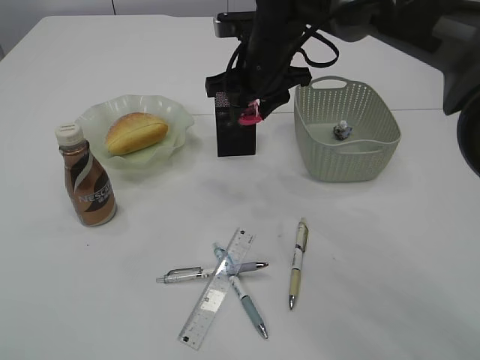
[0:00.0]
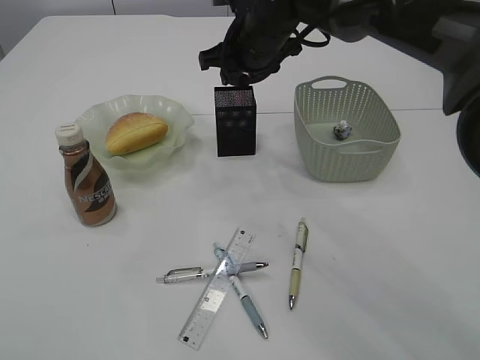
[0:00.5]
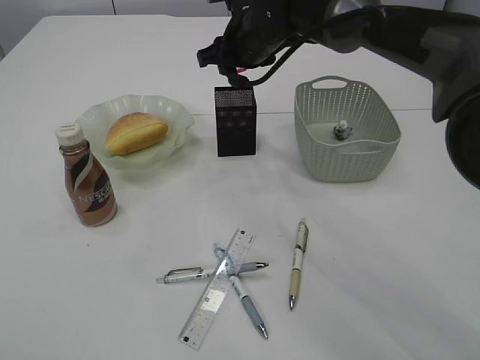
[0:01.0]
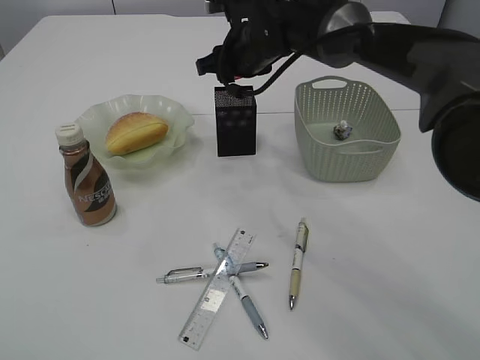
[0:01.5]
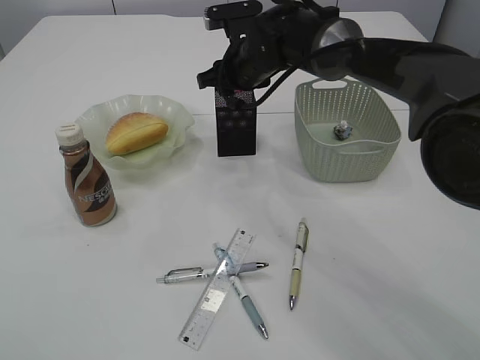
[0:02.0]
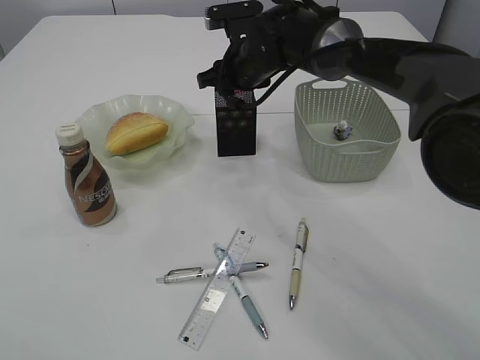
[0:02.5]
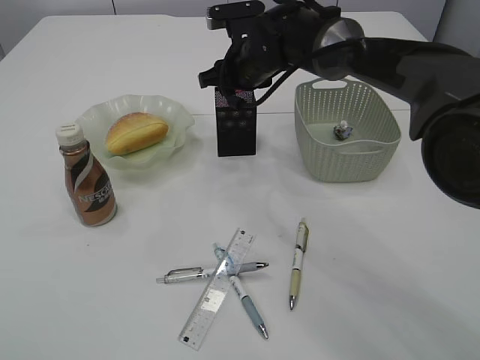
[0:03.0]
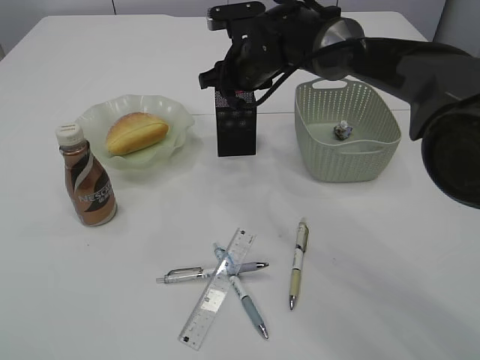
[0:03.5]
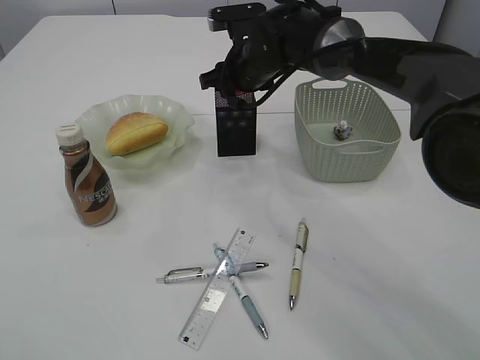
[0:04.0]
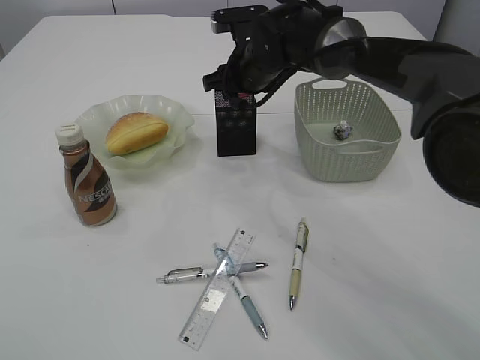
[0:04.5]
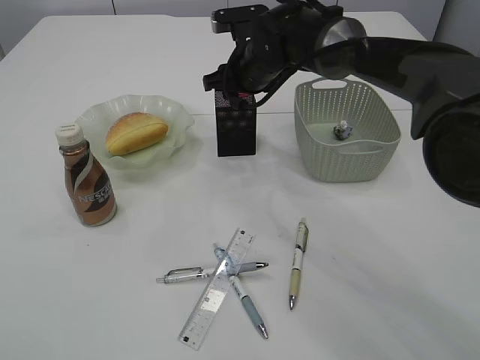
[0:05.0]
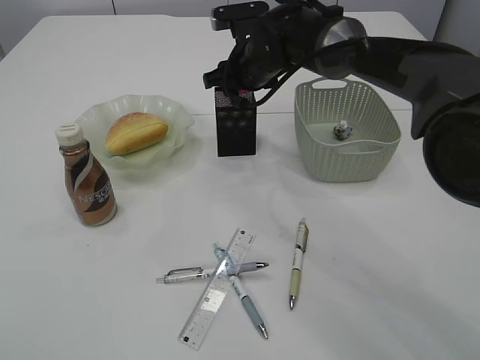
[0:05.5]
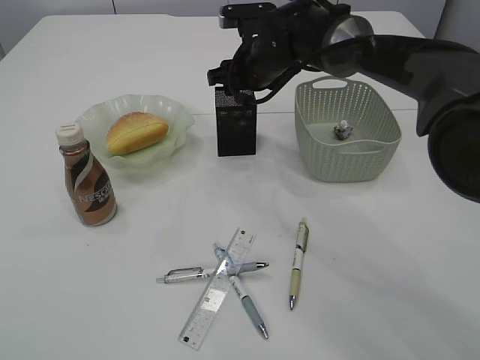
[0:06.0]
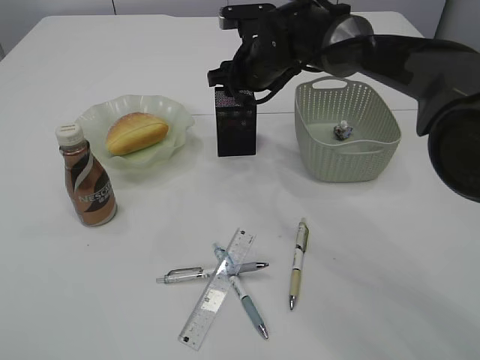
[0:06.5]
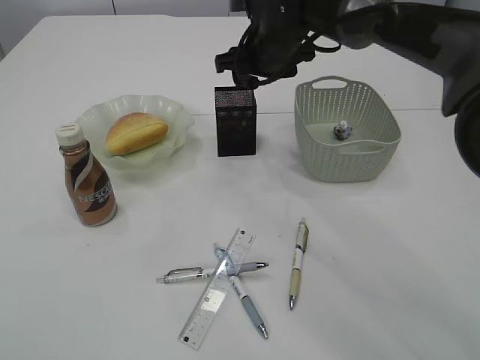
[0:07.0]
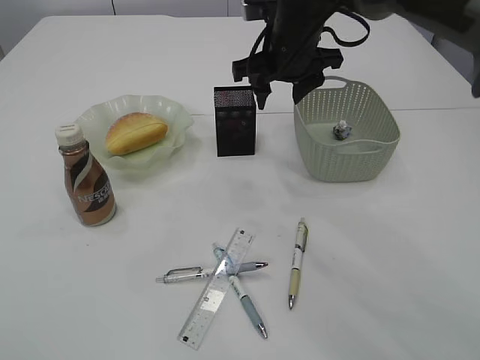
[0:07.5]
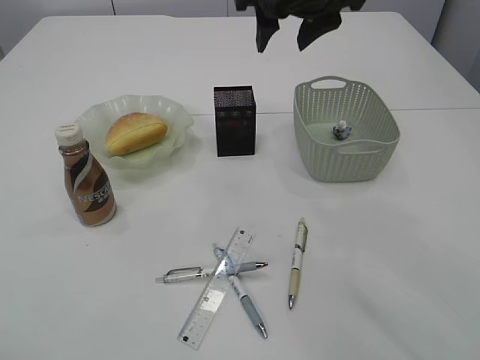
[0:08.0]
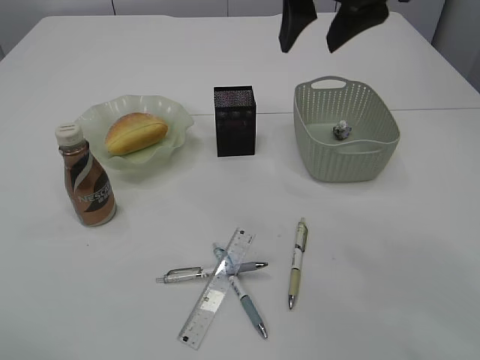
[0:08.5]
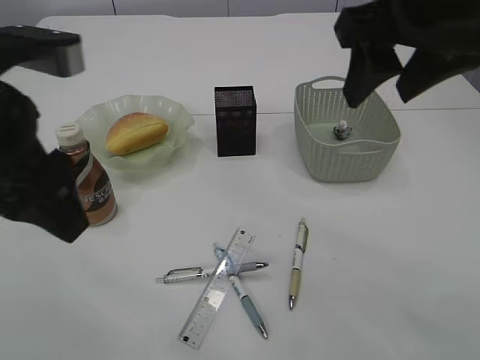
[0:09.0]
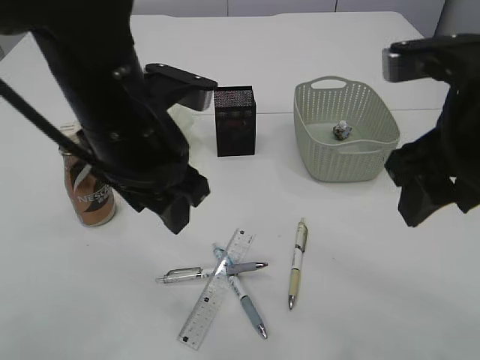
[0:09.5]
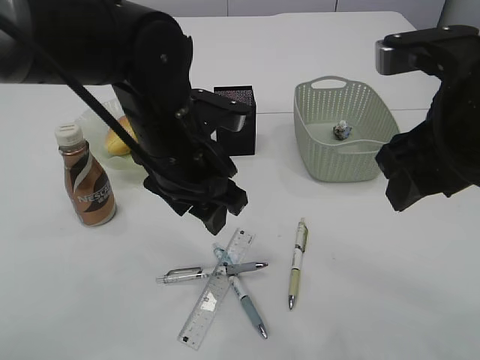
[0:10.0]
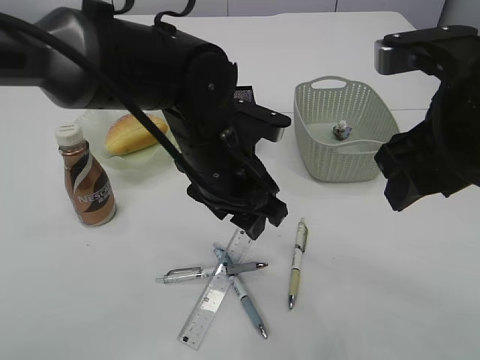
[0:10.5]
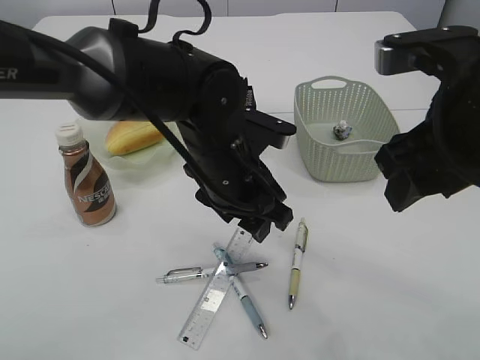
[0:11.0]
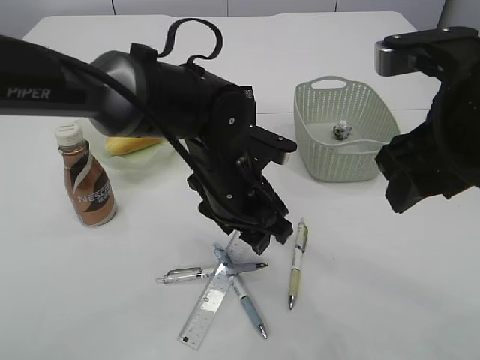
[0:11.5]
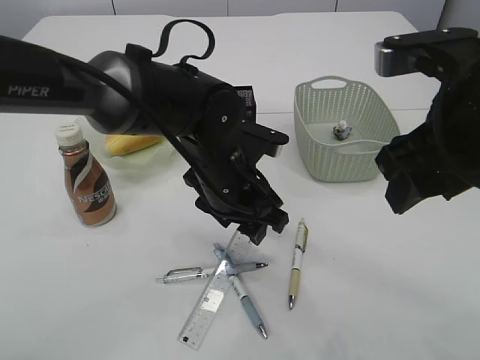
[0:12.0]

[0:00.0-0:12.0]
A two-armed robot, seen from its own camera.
Step, 0.0 to 7.0 s: Place the red pencil sharpener into the pen holder.
0.0 to 2.0 s: The right gripper changes place by approximately 5 cm.
2.0 to 4.0 s: Neither gripper changes place.
4.0 to 6.0 s: Neither gripper changes place.
6.0 to 8.0 s: The right gripper travels upward and backward by roughly 15 cm.
8.0 to 10.0 s: The right gripper heads backward and to the right, covering some 20 cm. Meanwhile the left gripper moves to the right and forward, about 30 cm.
10.0 to 12.0 s: The left gripper goes about 5 cm downward.

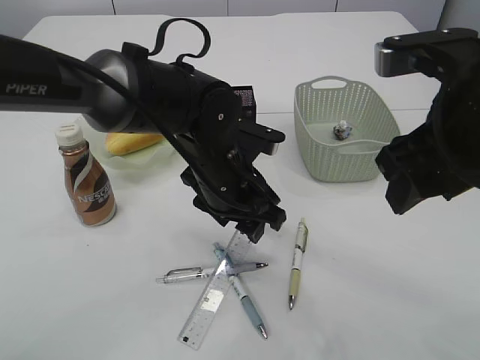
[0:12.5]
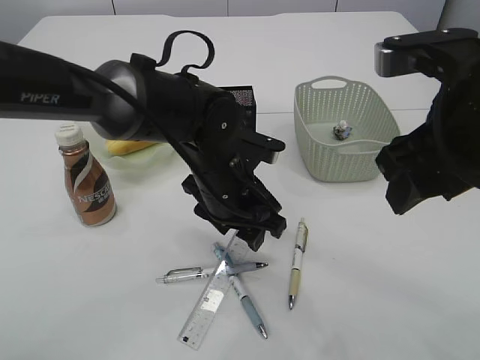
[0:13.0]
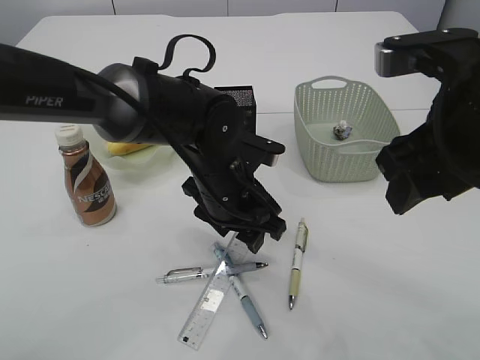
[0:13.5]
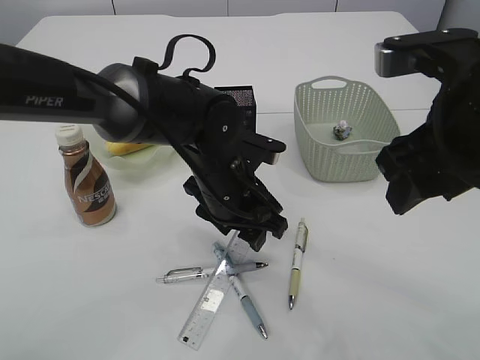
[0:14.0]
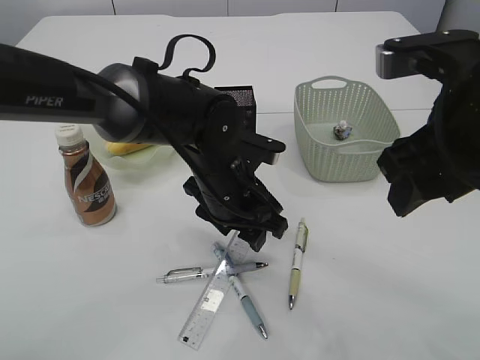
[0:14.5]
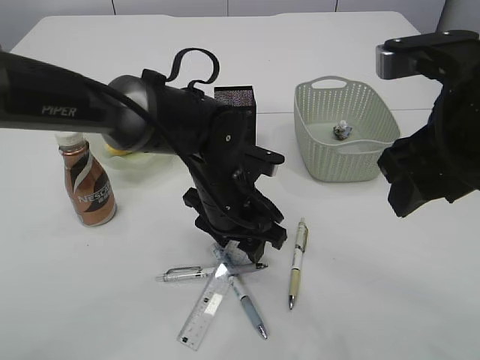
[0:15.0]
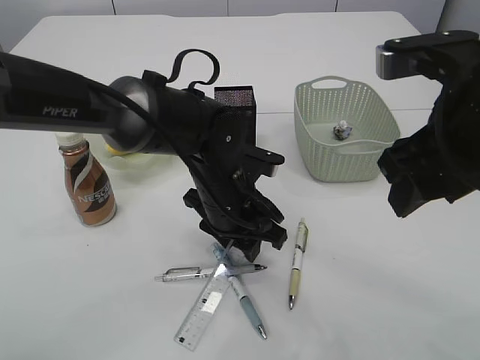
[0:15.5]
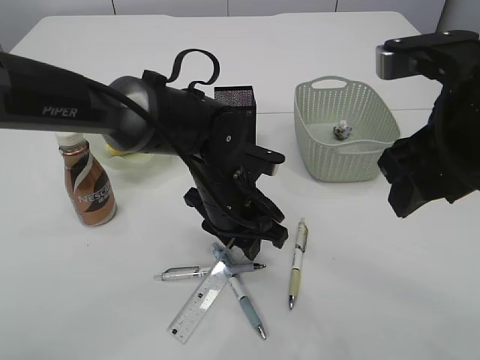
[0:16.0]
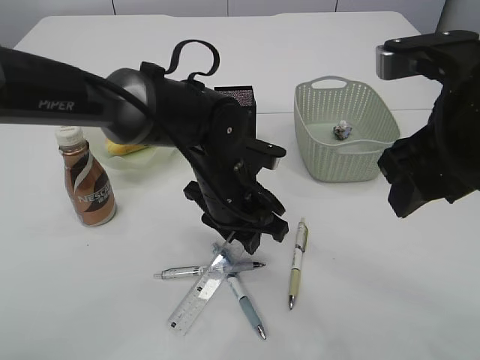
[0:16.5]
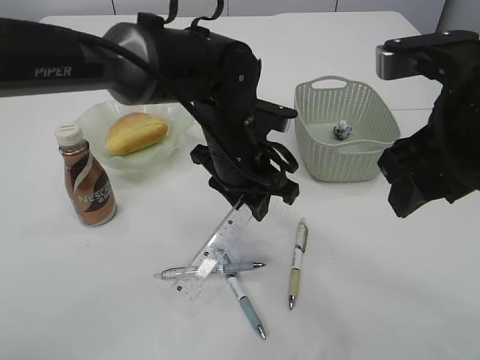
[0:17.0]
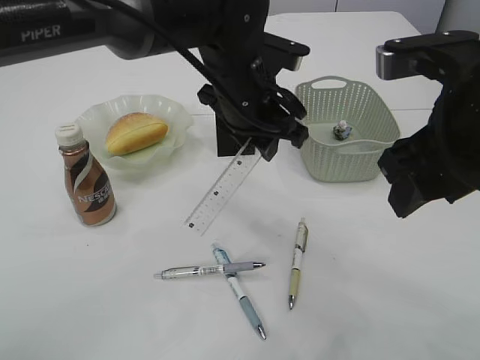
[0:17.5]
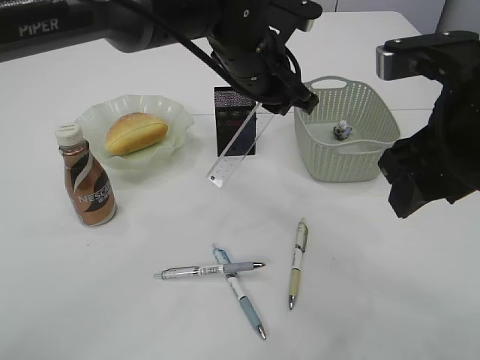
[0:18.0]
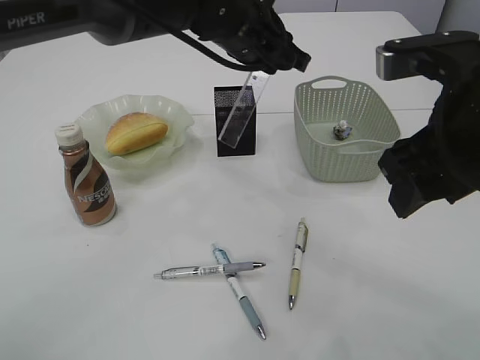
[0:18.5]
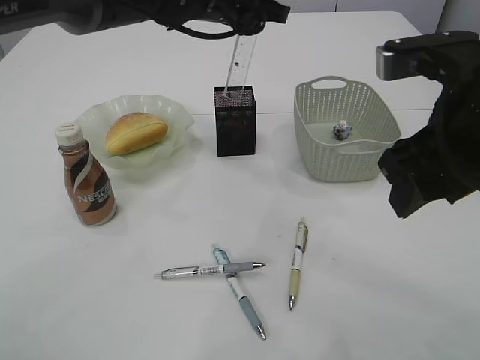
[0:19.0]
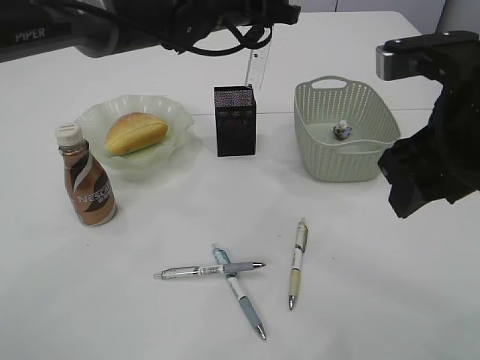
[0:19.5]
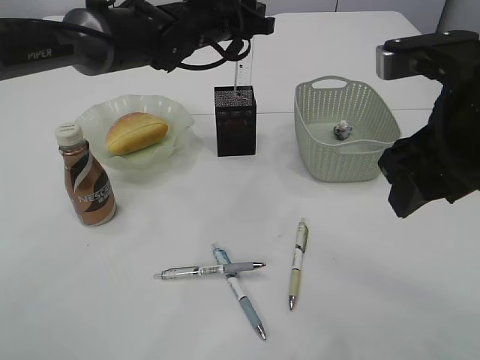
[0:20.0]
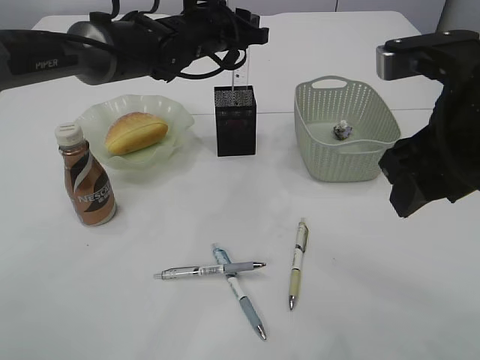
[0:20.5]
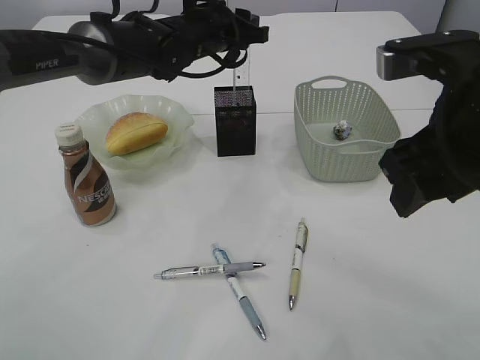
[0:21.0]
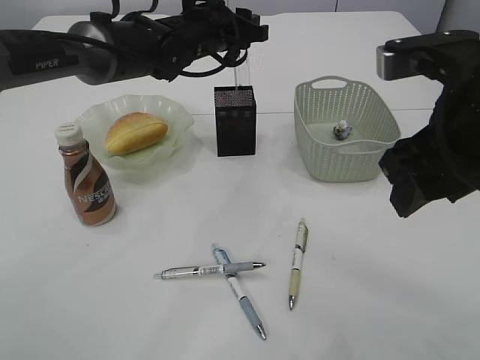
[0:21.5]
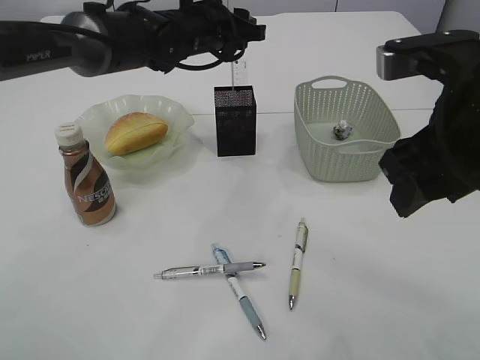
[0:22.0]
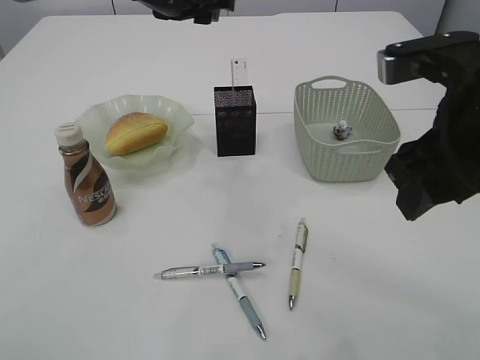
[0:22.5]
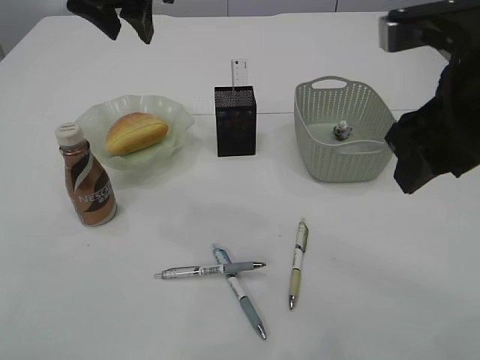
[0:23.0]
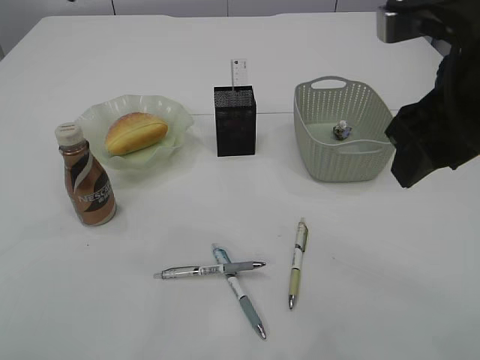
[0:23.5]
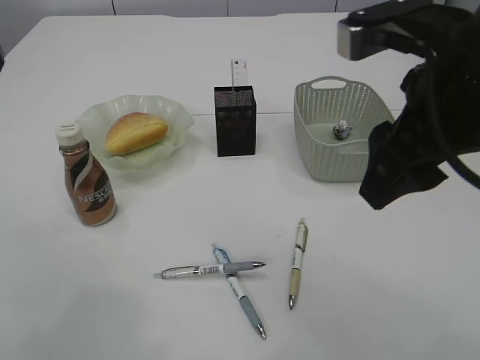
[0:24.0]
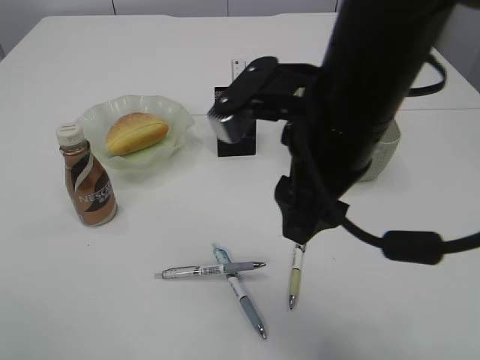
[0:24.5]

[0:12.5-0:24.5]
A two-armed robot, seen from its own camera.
Step, 12.5 to 17.0 s: pick up the ruler.
Step, 17.5 to 22.0 s: Place the ruler into the pen holder.
12.5 to 14.5 s: The grippers make only small movements.
14.5 to 16.5 s: The left gripper closes.
16.5 to 18.5 s: The left gripper is displaced upward and forward by approximately 15 cm.
18.5 to 20.5 s: The left gripper moves forward and to the left, approximately 10 cm.
20.5 to 22.5 s: The left gripper travels upward by some 5 cm.
22.5 to 24.5 s: The right gripper is displaced to the left by roughly 10 cm, while the left gripper moves backward and to the left, approximately 30 cm.

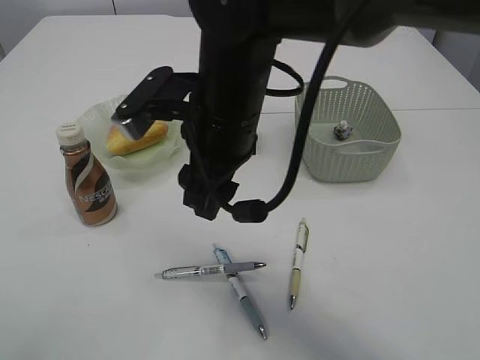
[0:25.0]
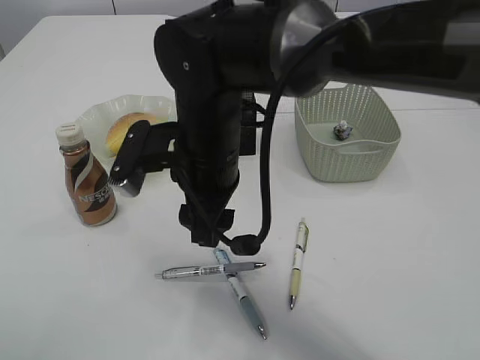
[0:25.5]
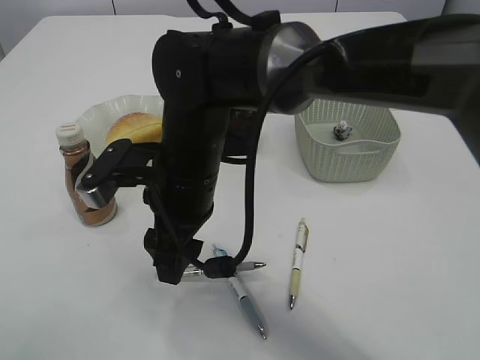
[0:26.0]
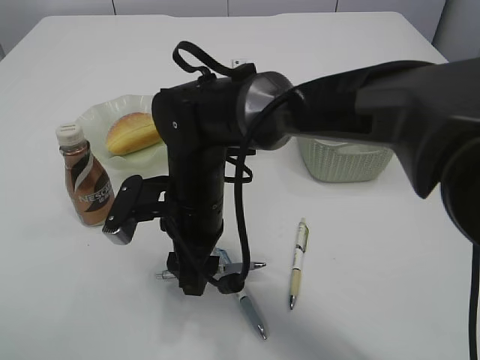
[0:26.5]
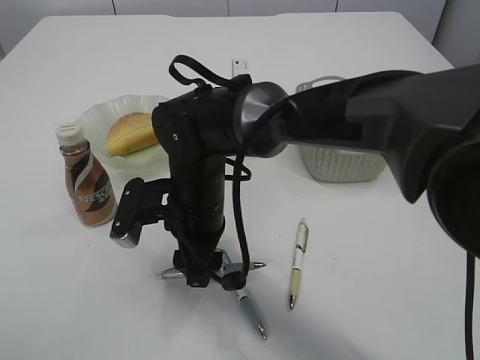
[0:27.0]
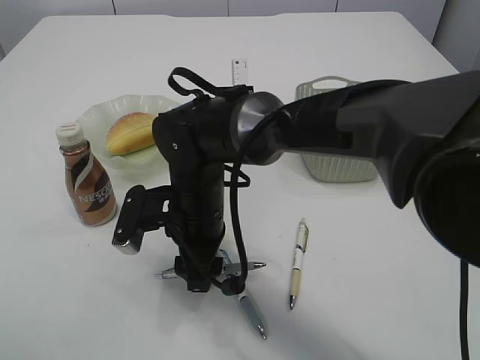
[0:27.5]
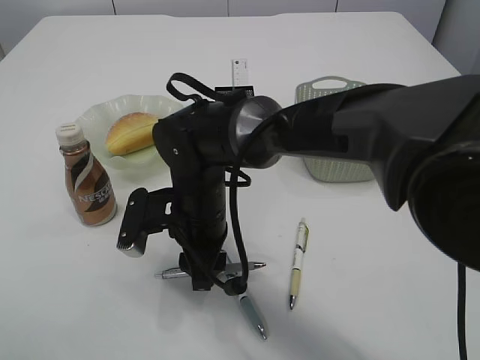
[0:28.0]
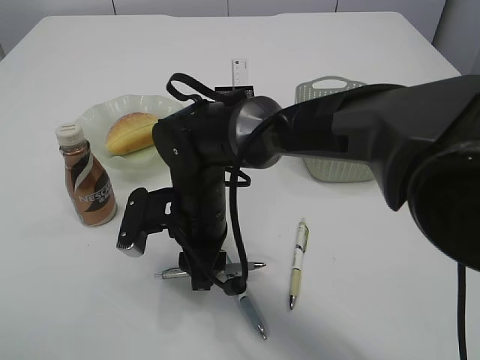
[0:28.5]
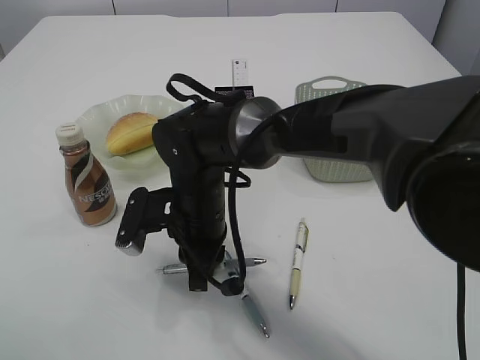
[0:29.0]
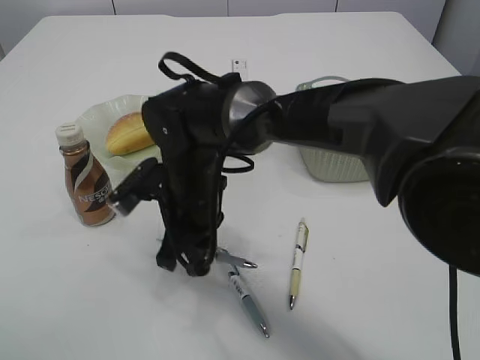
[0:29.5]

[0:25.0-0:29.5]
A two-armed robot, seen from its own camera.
25.0 to 27.0 s: The right gripper goes roughly 10 cm downward.
27.0 to 29.5 s: The right gripper closes.
